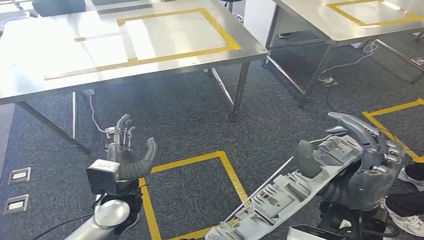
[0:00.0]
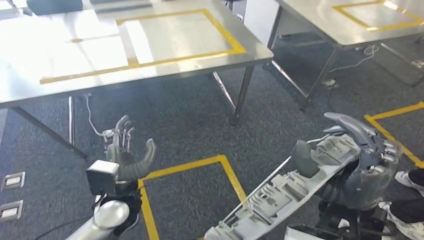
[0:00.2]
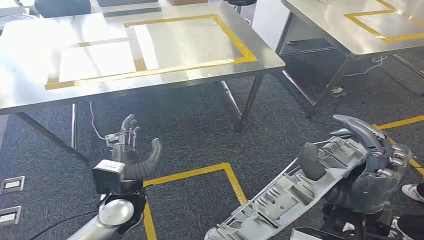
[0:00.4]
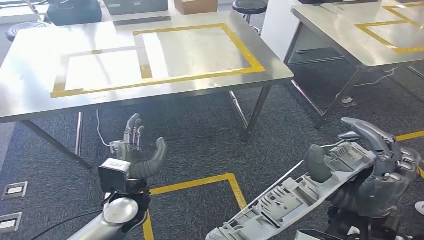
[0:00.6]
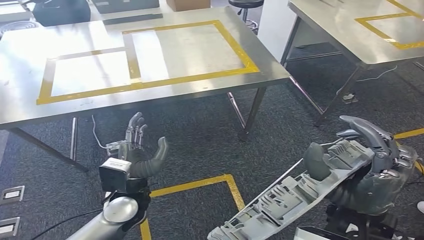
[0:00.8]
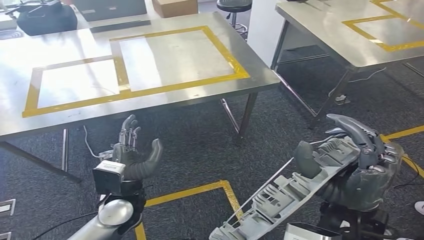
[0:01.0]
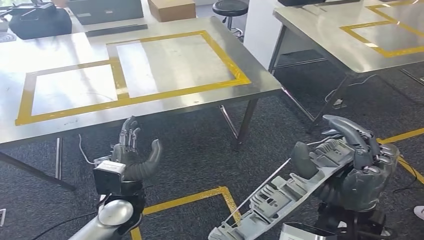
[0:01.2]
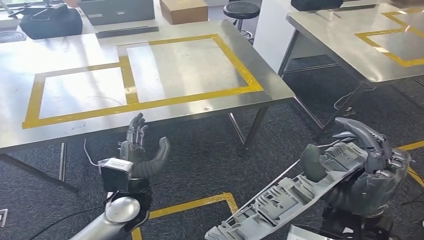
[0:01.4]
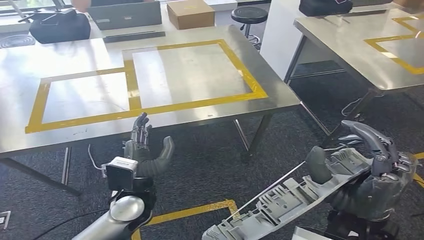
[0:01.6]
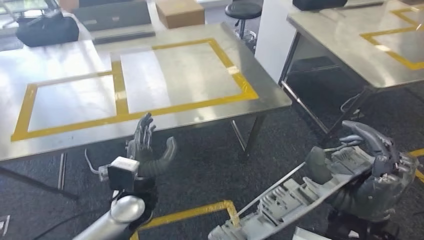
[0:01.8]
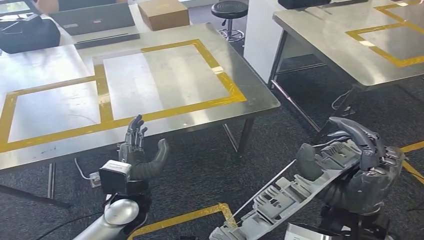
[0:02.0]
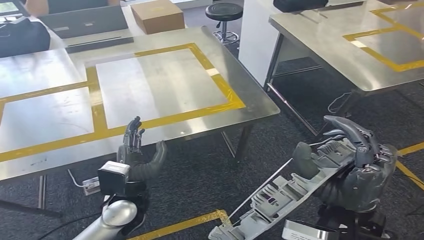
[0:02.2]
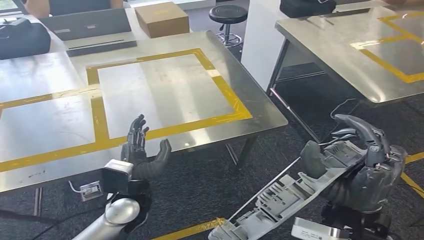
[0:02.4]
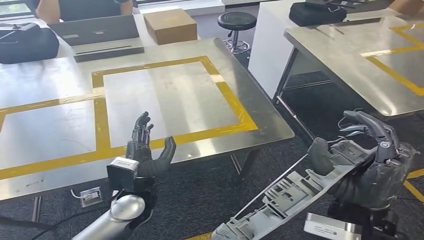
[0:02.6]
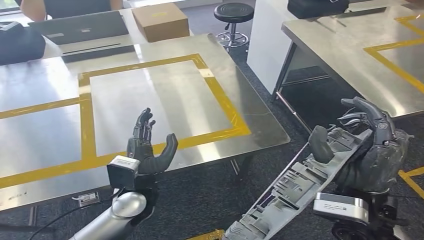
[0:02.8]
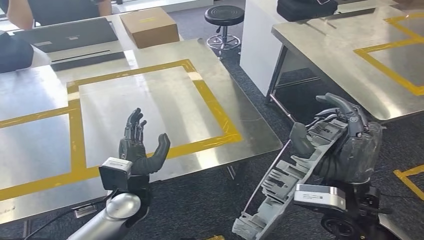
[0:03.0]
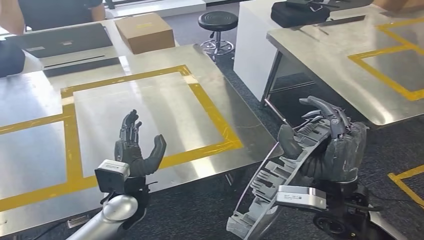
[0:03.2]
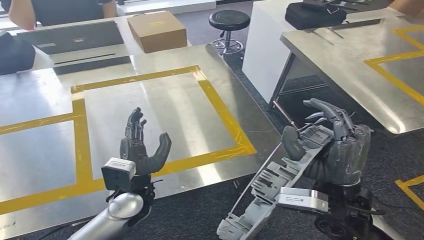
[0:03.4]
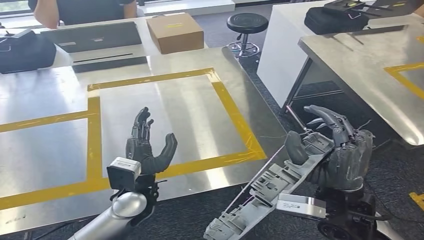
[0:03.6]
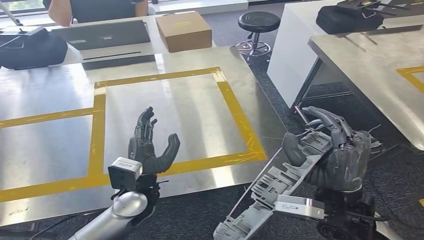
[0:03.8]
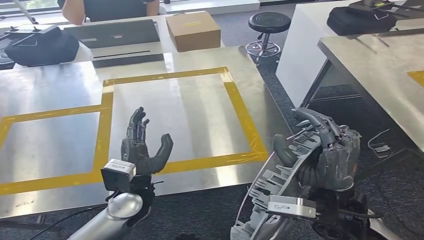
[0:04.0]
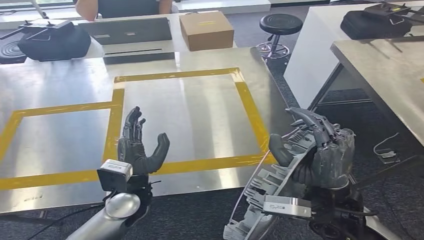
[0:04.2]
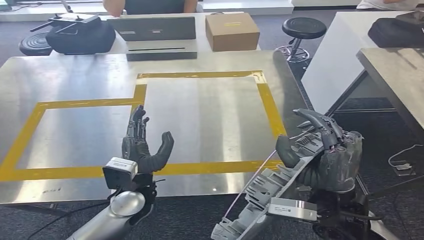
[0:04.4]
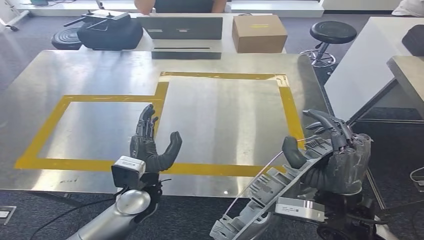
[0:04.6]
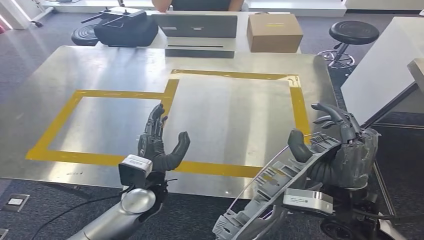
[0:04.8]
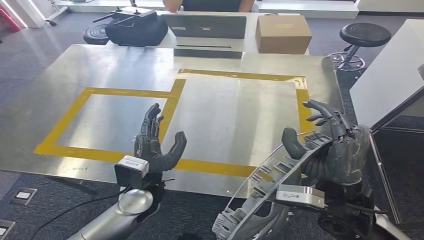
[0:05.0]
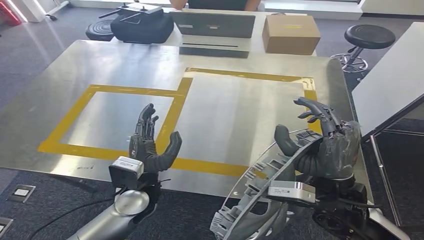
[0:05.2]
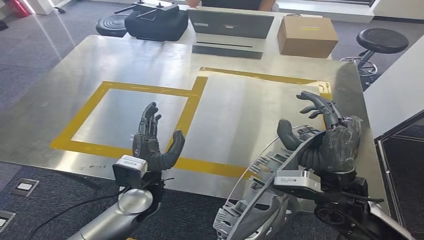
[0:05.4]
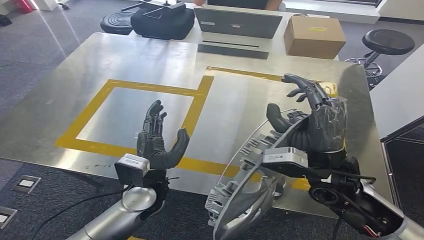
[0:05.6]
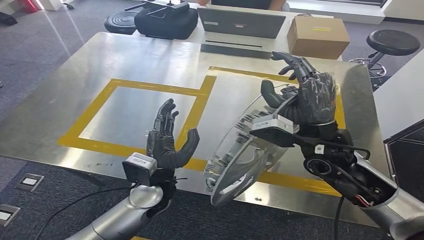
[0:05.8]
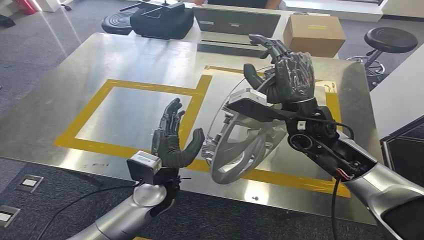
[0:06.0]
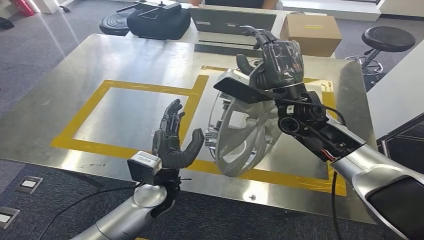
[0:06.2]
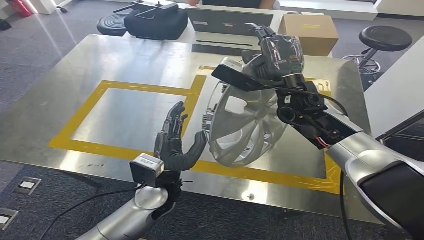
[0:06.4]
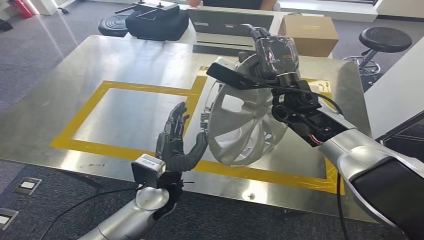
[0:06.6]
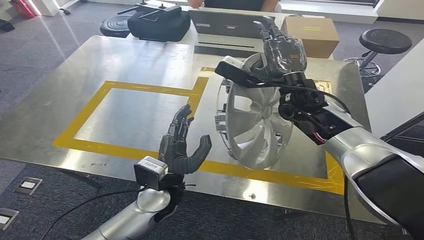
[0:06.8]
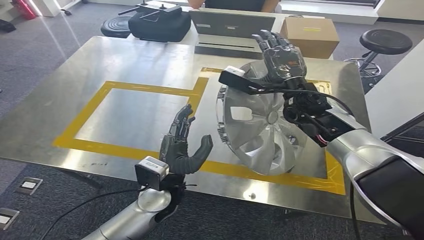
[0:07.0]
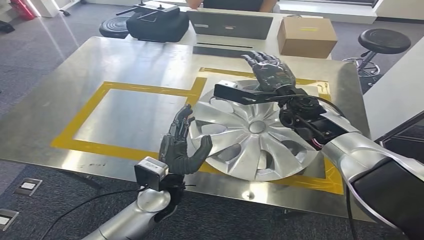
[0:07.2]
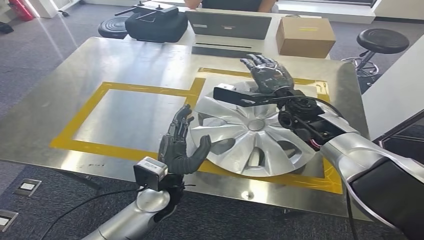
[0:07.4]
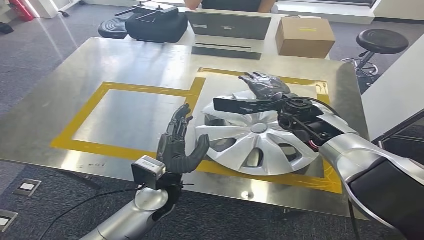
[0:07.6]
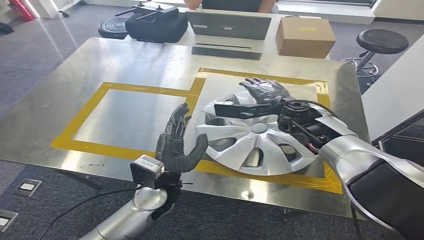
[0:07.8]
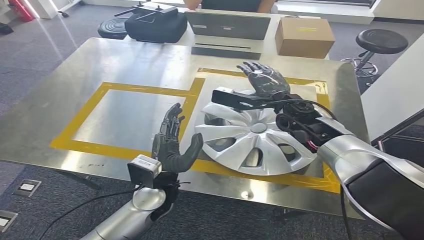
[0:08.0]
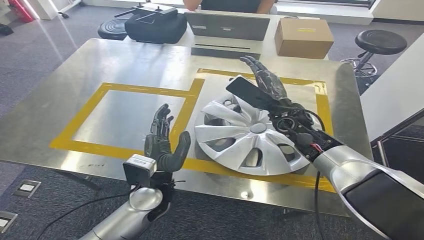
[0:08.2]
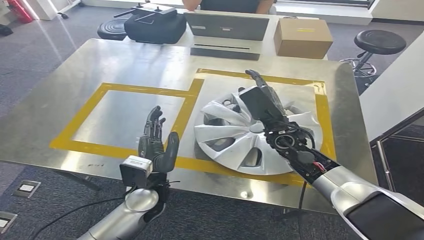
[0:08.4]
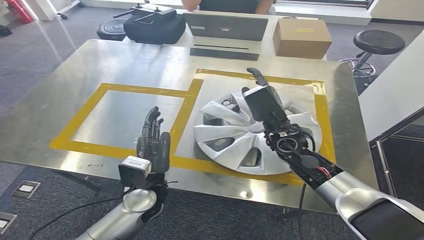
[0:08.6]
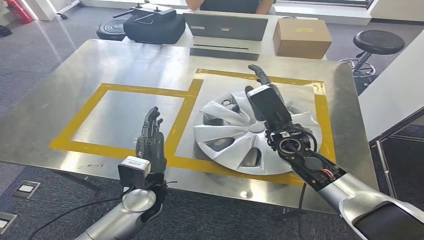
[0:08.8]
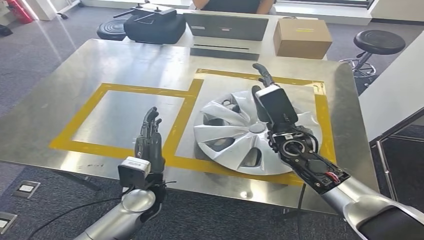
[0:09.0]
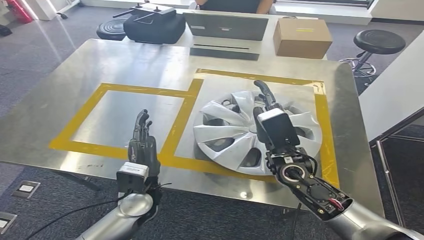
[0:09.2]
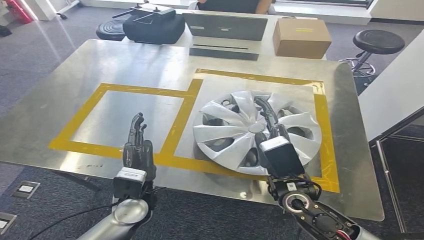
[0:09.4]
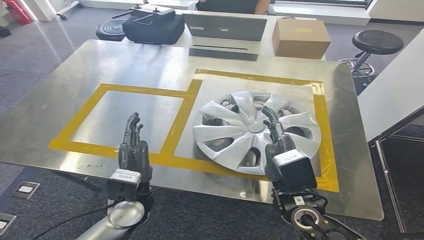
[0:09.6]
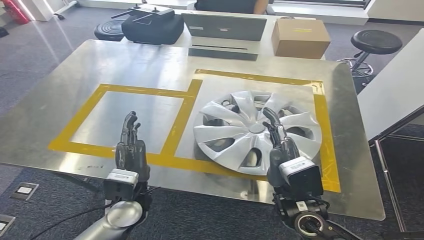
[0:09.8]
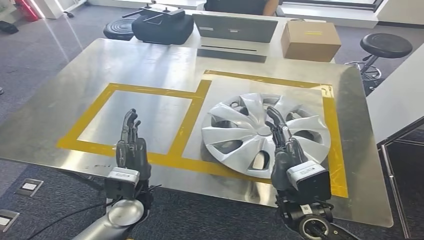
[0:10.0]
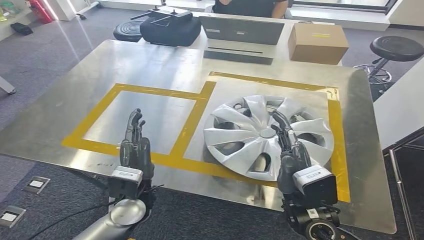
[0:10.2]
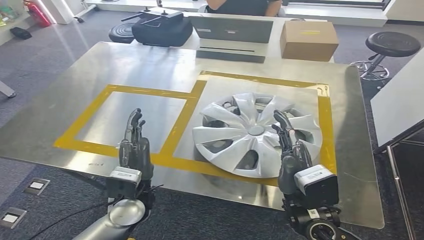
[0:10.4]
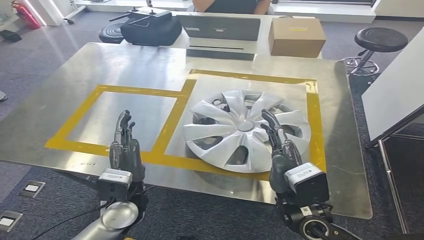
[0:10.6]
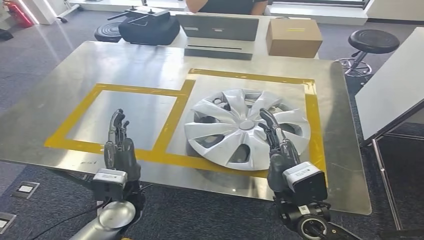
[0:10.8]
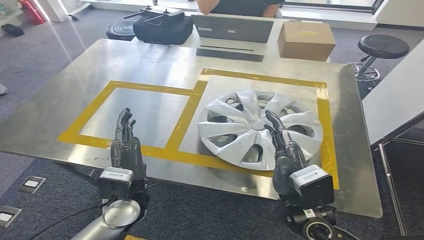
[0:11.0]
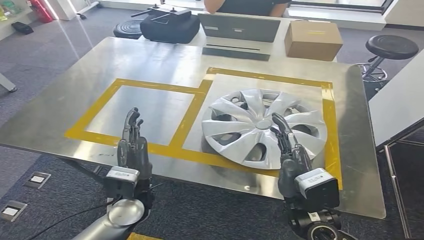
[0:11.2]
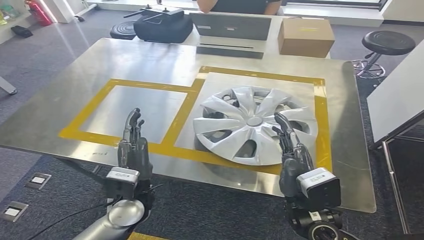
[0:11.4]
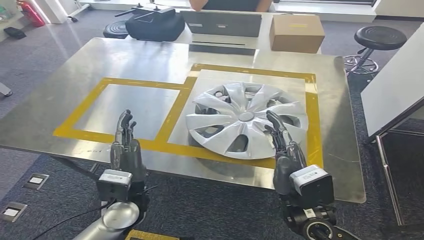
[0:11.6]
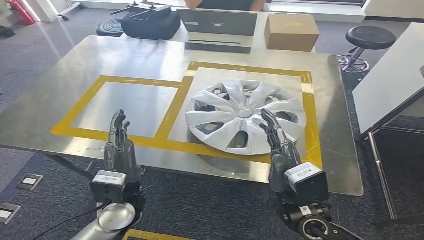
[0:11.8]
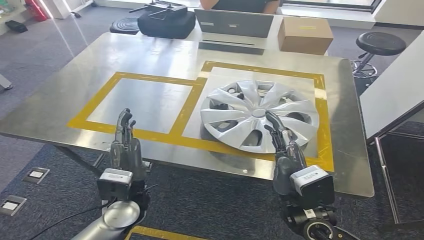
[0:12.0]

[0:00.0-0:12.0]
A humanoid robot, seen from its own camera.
Step, 0:00.0 to 0:03.2: Move the small component to the workbench.
Step, 0:03.4 to 0:09.6: Insert the small component into the corresponding slot on the workbench.

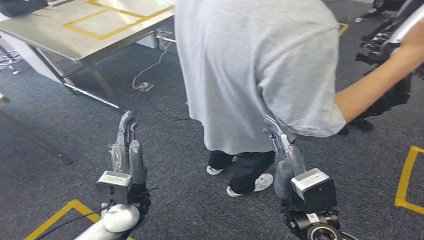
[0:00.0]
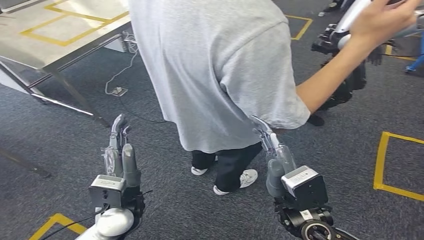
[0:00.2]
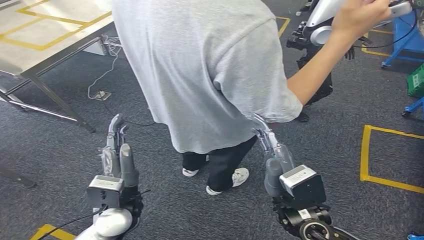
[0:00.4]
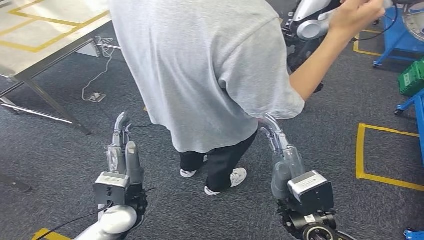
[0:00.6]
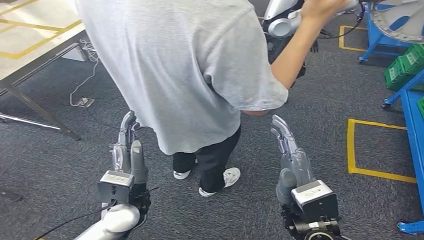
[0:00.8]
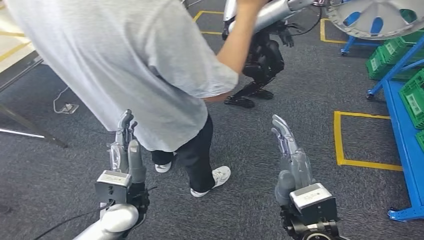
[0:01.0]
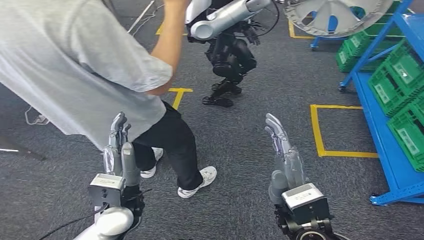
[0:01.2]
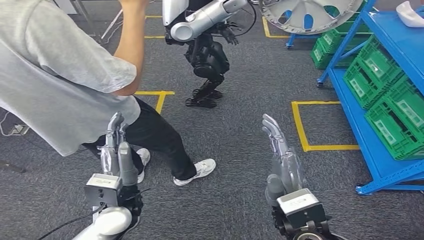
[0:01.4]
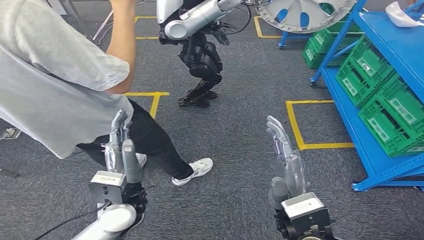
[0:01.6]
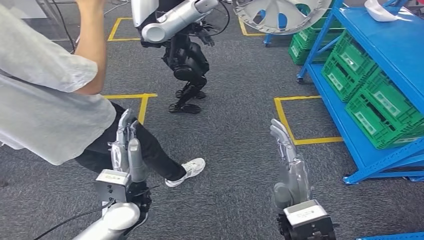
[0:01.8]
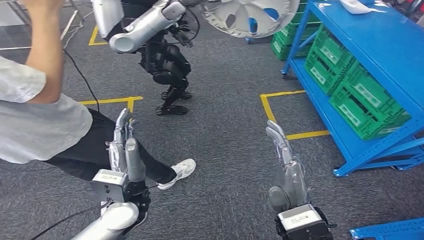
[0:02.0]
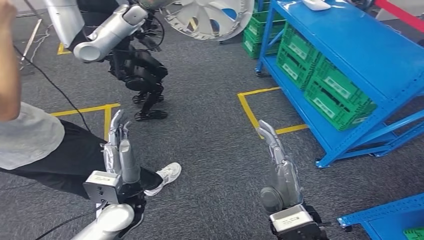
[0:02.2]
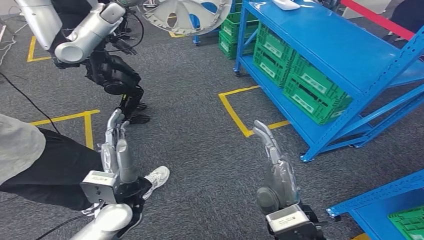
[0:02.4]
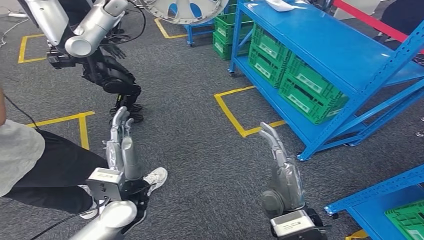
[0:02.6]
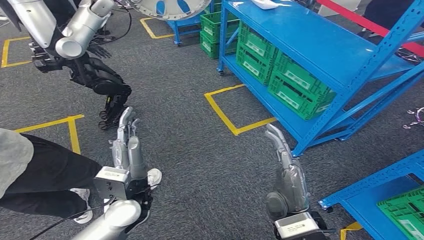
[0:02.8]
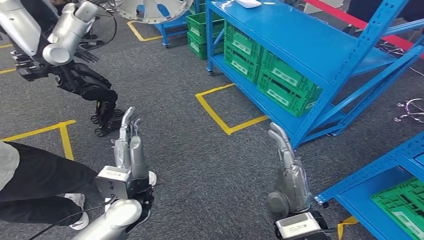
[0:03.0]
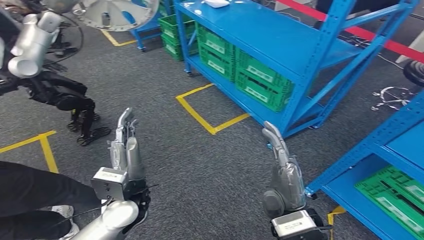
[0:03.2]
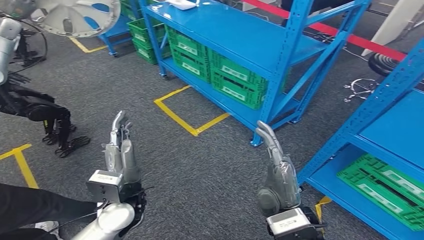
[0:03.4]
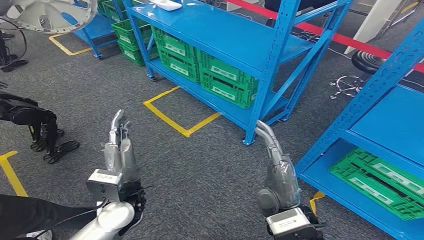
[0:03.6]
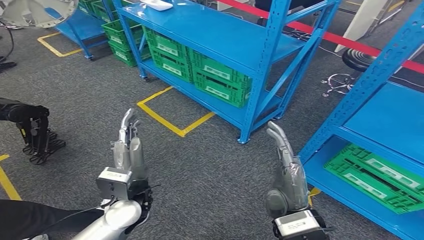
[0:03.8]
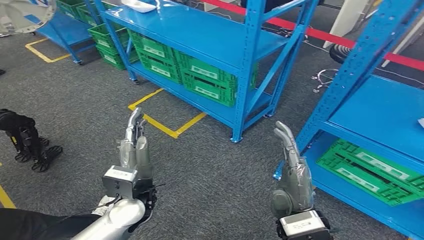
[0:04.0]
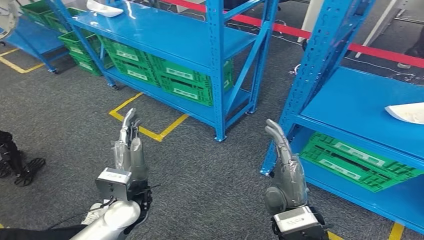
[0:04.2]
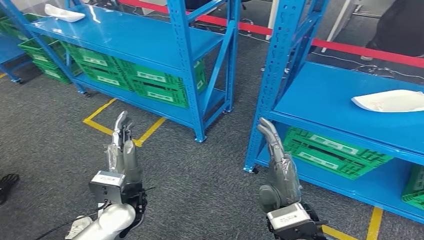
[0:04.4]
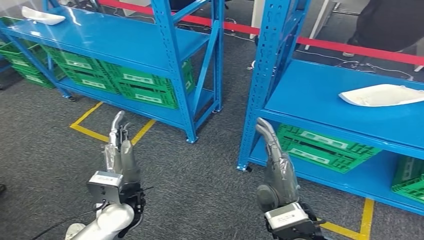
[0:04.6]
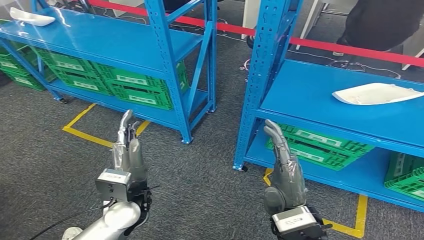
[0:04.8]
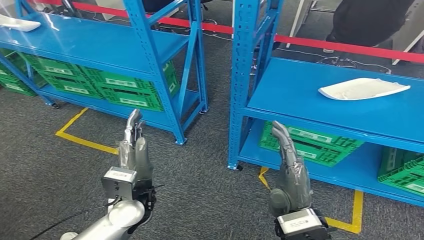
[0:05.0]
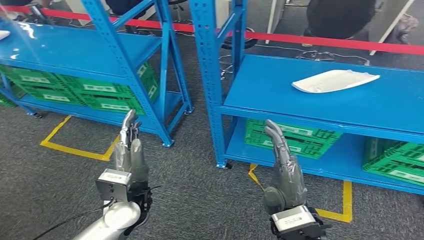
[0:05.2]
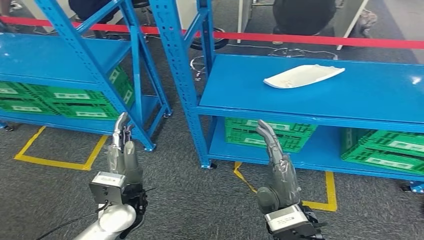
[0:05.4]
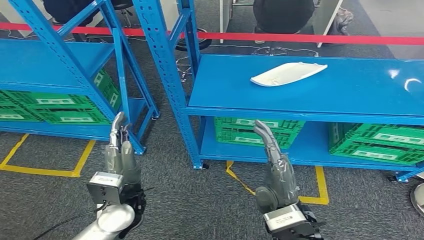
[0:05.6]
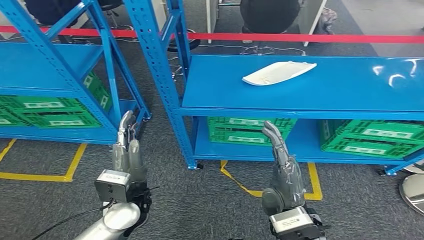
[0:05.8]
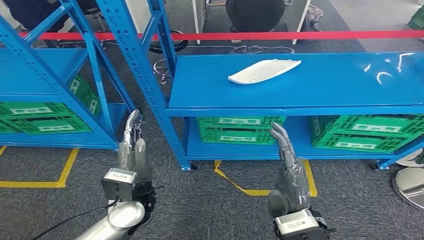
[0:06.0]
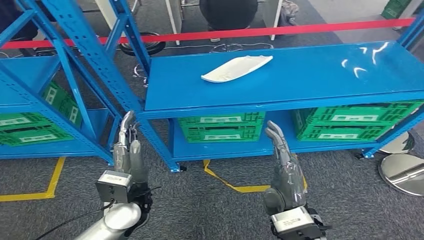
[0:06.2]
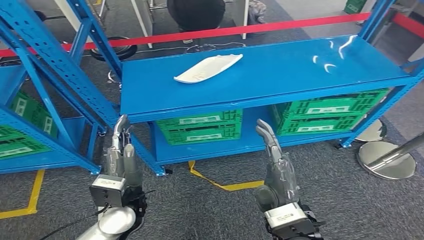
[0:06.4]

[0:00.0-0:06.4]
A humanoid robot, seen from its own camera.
Step, 0:00.0 to 0:06.4: Return to the initial position at the workbench.
